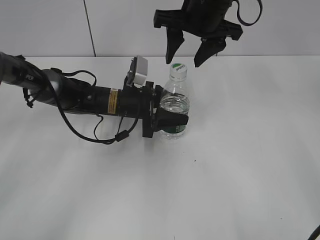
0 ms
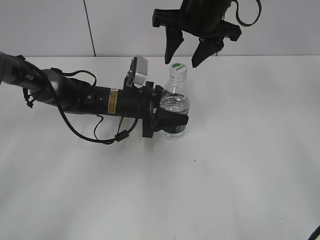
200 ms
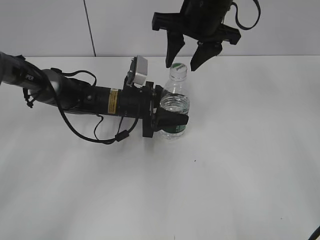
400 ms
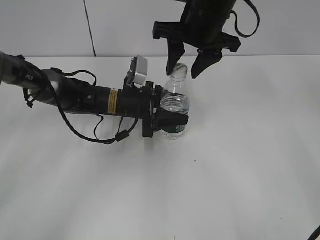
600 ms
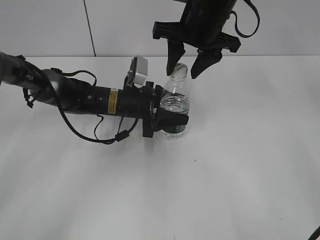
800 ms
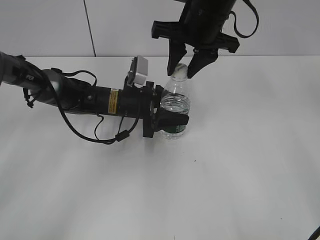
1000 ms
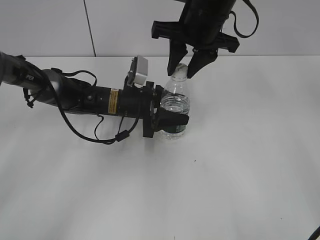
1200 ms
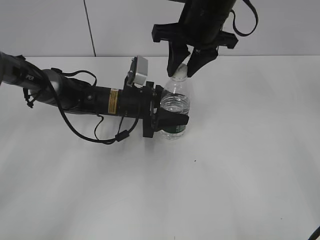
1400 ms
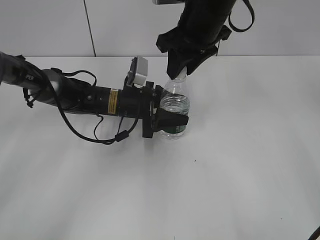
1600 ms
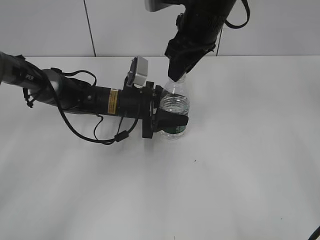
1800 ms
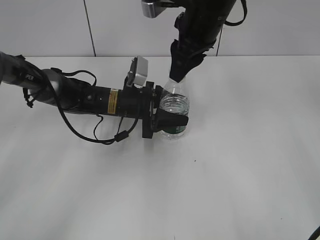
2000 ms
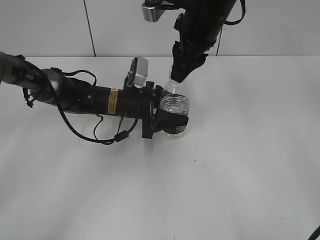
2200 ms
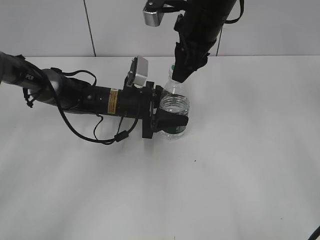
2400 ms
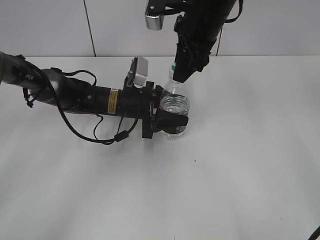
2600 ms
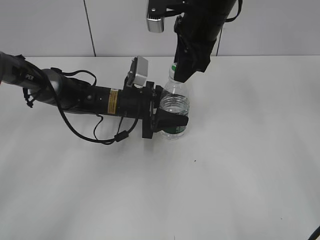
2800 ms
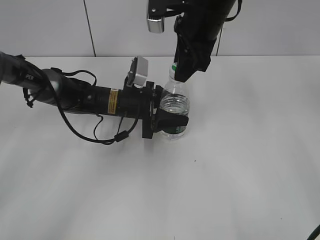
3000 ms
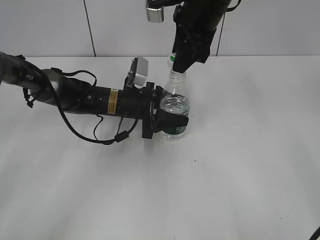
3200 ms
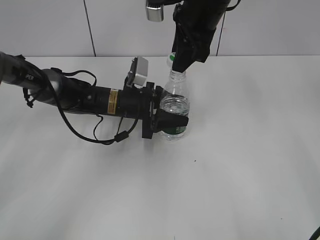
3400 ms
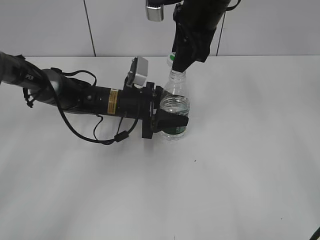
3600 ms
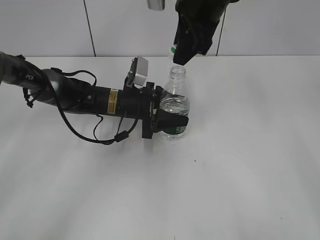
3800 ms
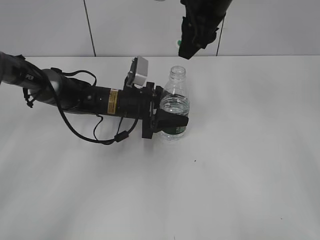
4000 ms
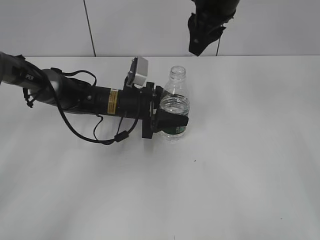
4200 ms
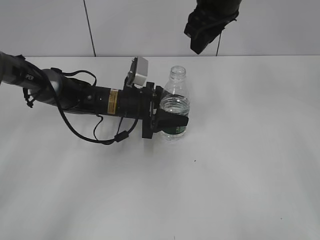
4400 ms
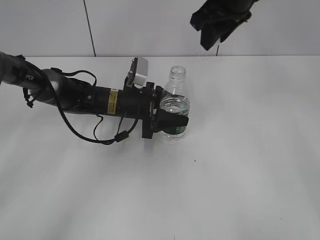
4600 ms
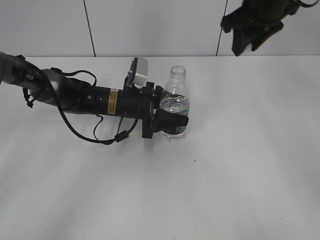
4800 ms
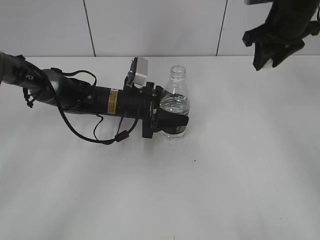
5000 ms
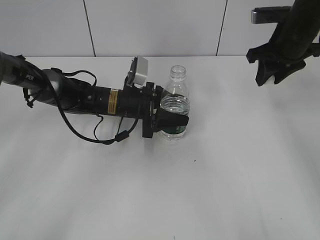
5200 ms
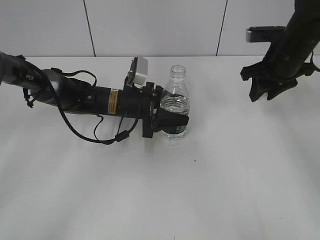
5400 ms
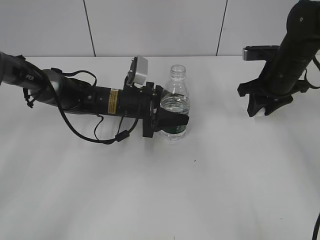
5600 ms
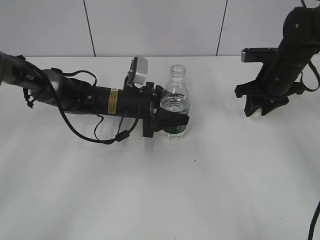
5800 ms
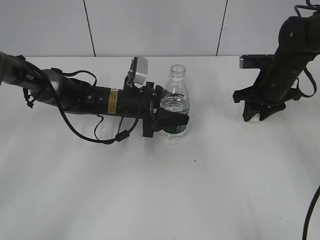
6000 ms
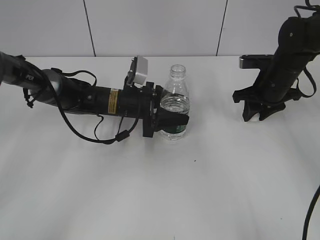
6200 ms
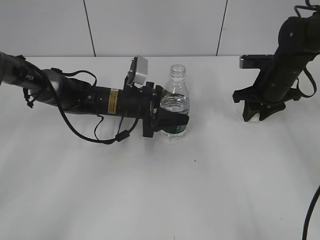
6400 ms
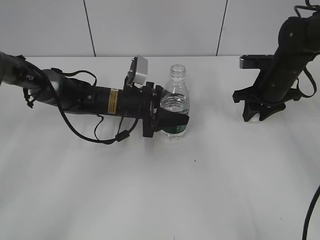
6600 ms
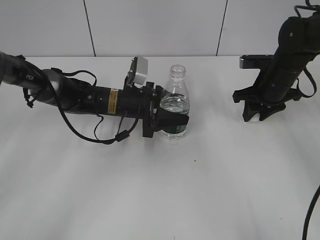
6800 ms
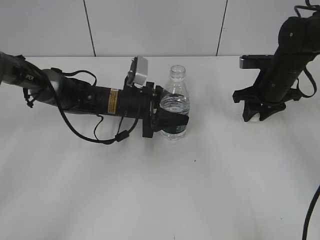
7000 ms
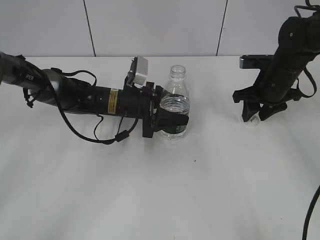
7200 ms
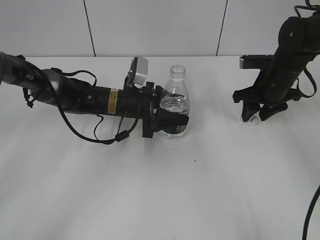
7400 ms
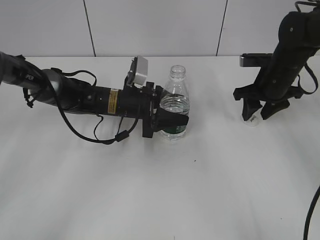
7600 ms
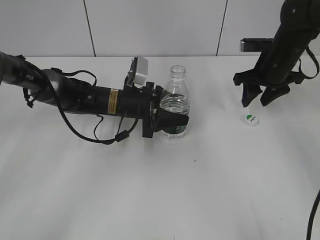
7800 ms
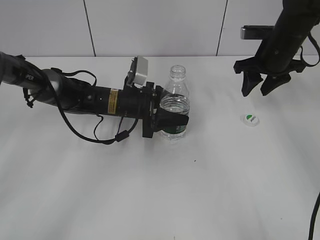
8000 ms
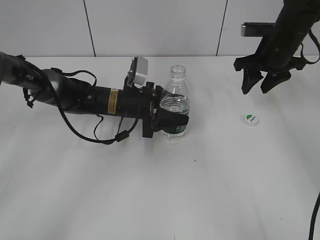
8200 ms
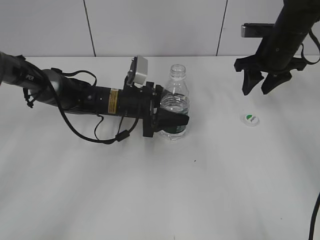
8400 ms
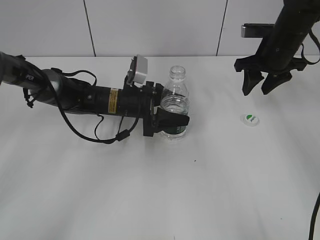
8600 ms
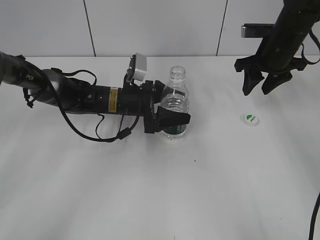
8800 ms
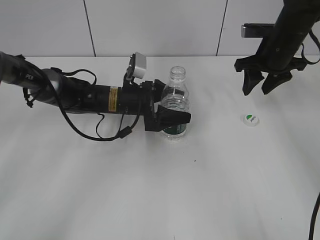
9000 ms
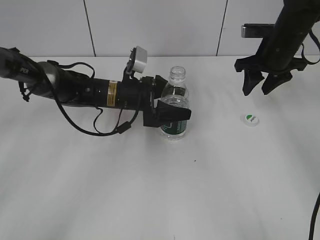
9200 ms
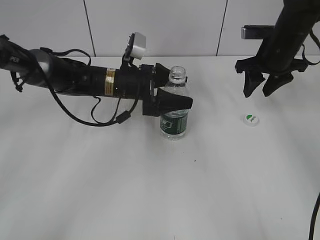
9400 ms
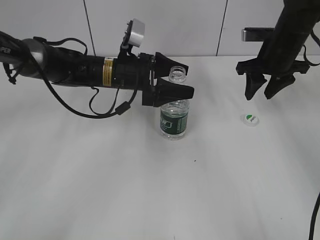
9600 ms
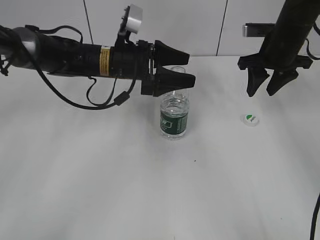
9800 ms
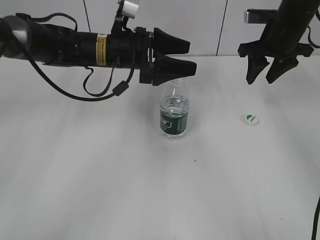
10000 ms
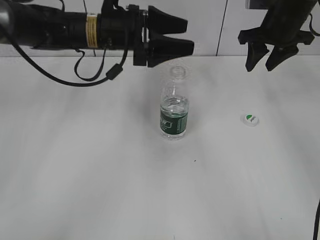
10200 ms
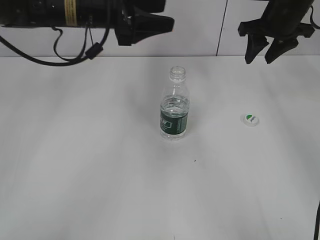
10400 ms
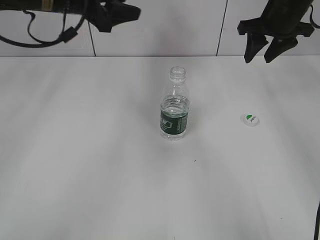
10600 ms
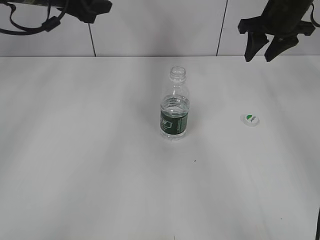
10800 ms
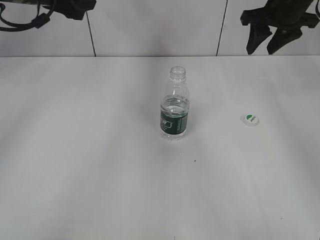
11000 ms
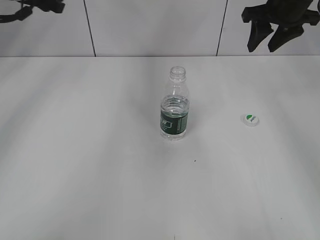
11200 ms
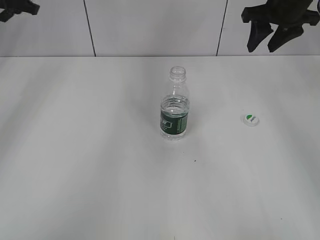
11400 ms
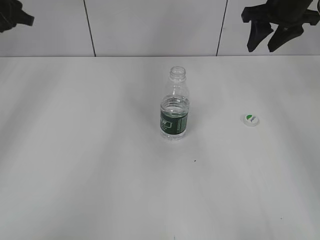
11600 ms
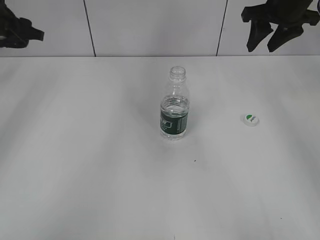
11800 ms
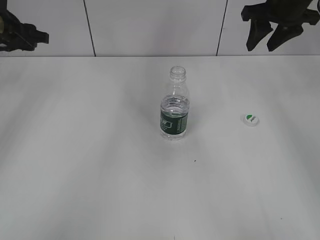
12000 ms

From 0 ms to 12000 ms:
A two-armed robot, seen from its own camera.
Step, from 0 ms to 4000 ms: Unscrew the bottle cap with the right gripper while holding the bottle with the left gripper.
Step, from 4400 ms to 7800 ms: Place the bottle cap on the table with the right gripper.
Step, from 8000 ms to 9800 ms: Place the bottle on the table with the left gripper.
From 0 ms to 1600 ms: The right gripper closes up.
From 4400 ms to 6000 ms: The right gripper travels downward and to the right by about 25 cm.
From 6000 ms to 7600 ms: The right gripper opens.
From 7600 ms to 9000 ms: The right gripper goes about 5 cm upward. Meanwhile the left gripper opens its fingers.
From 9000 ms to 10400 ms: The right gripper is displaced upward by about 5 cm. The left gripper moves upward, some 20 cm.
From 10400 ms to 12000 ms: The left gripper shifts approximately 20 cm to the left.

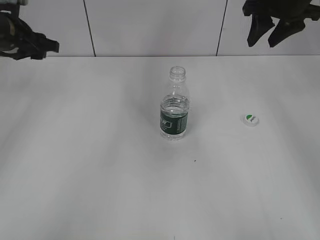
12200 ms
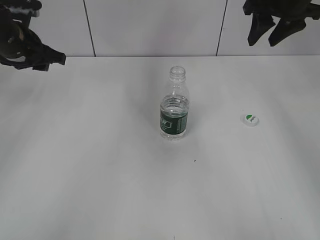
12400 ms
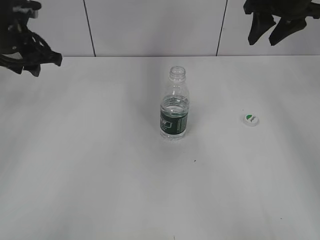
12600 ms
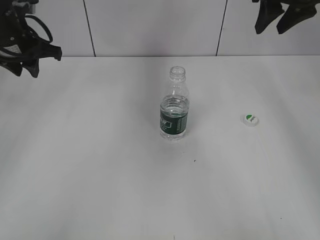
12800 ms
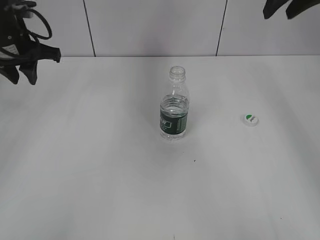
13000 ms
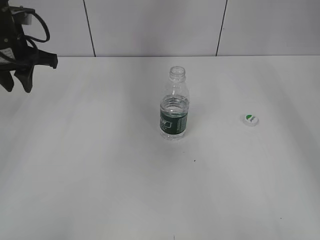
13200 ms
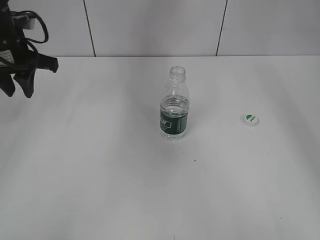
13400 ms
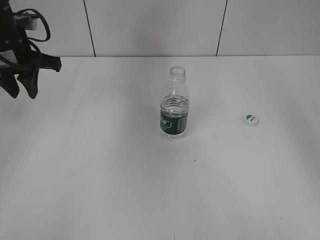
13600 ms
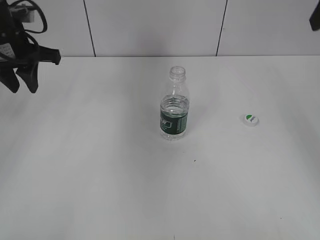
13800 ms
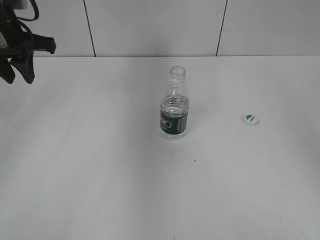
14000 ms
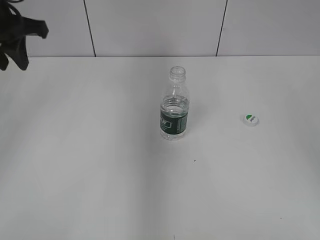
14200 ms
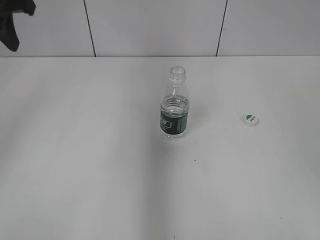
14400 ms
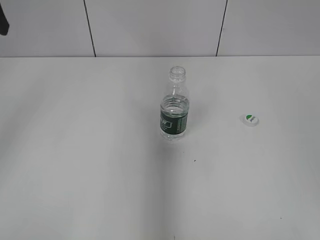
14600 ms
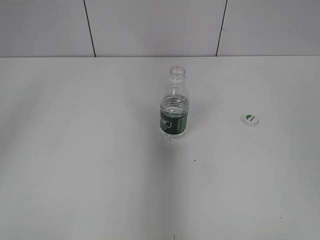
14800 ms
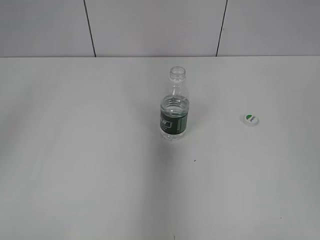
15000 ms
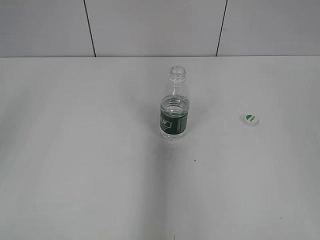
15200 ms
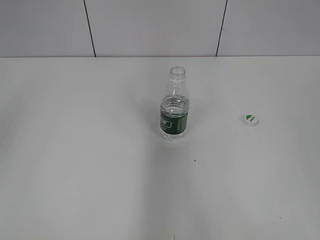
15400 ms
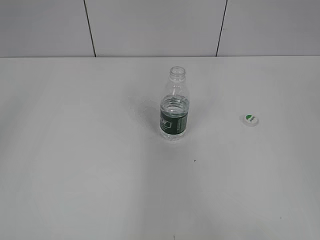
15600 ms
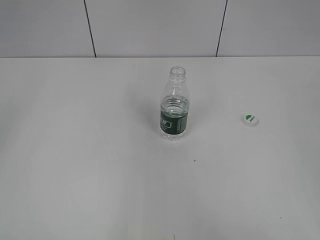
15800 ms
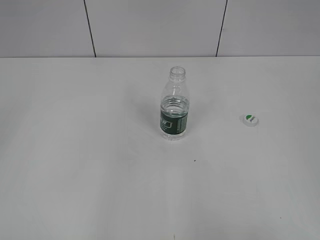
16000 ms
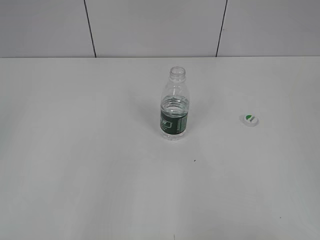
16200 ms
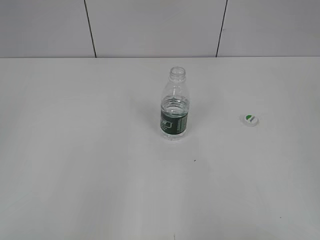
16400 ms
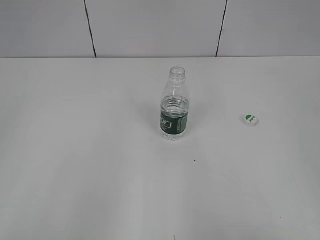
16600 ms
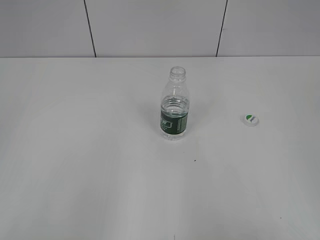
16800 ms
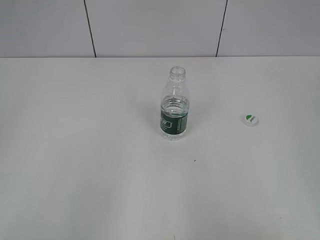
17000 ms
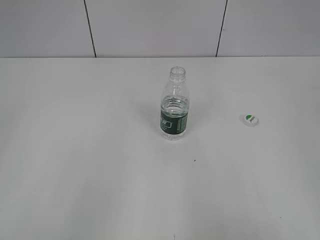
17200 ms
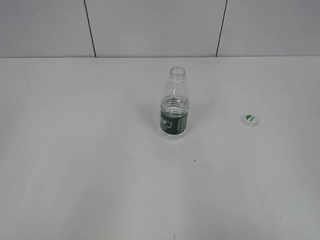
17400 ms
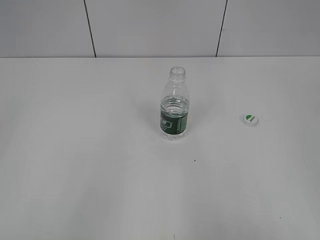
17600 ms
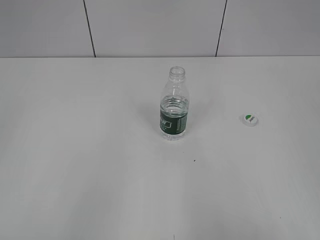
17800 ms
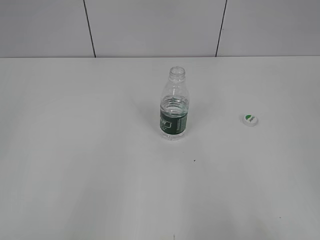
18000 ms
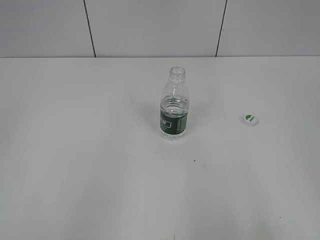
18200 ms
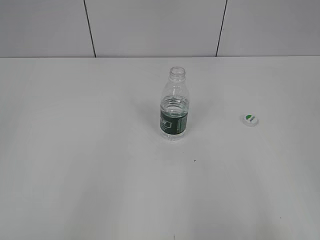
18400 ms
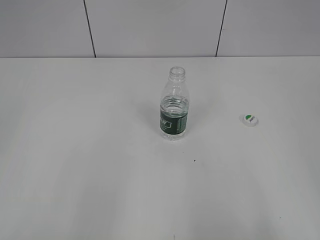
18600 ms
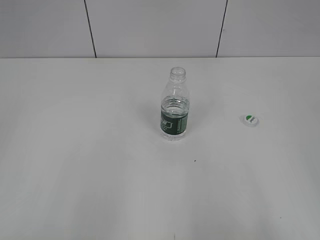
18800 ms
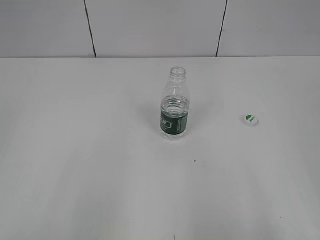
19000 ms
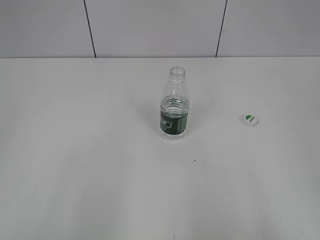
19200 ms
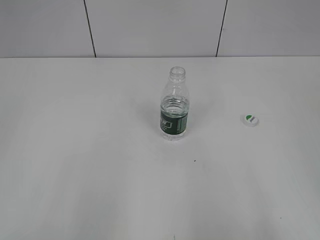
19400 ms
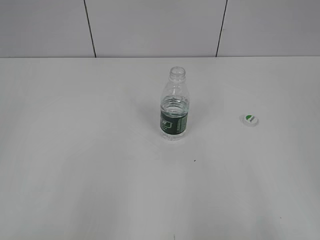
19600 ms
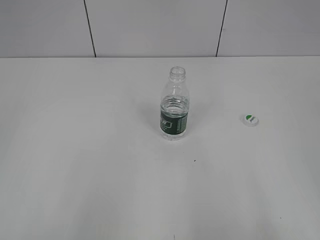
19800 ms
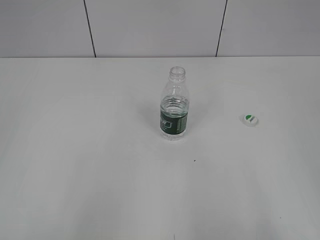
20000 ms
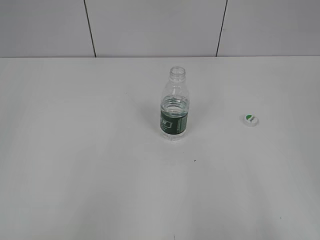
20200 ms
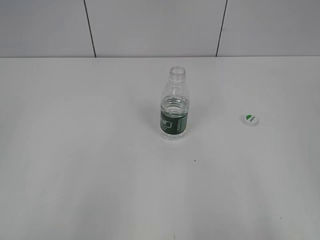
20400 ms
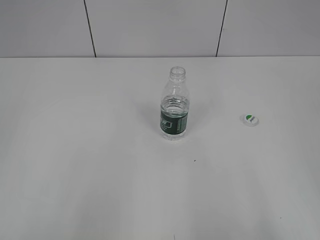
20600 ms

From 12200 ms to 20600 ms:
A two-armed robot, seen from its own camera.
From 12200 ms to 13600 ms: The right gripper is displaced upward and backward by roughly 15 cm, while the left gripper ends up some 5 cm from where it was, and closes its fingers.
From 13600 ms to 15000 ms: The right gripper goes about 25 cm backward. Meanwhile the left gripper heads upward and backward, covering approximately 20 cm.
From 15000 ms to 16400 ms: The right gripper moves backward and downward, roughly 10 cm; the left gripper travels backward by roughly 25 cm.

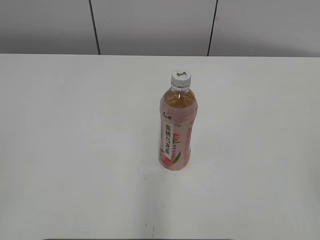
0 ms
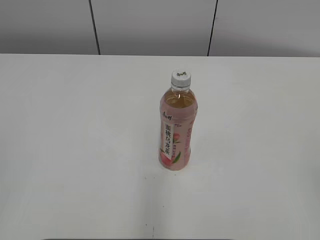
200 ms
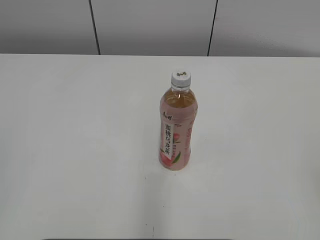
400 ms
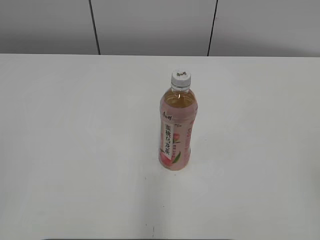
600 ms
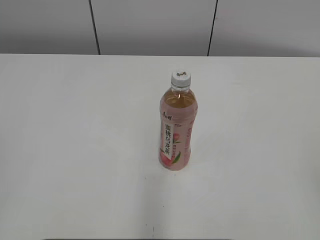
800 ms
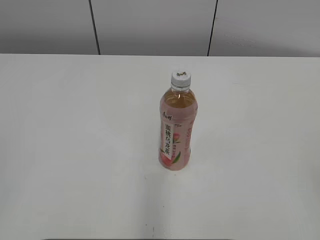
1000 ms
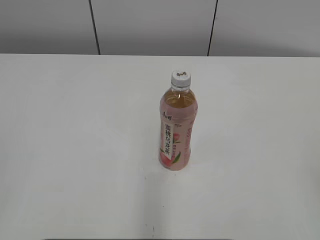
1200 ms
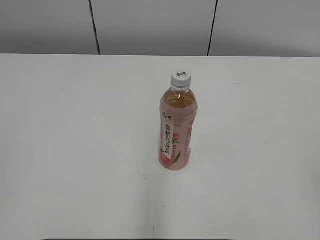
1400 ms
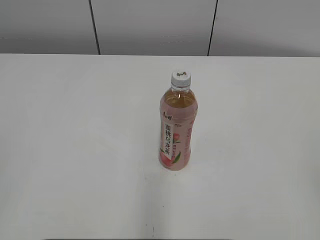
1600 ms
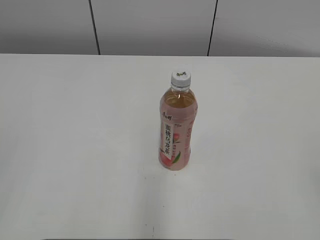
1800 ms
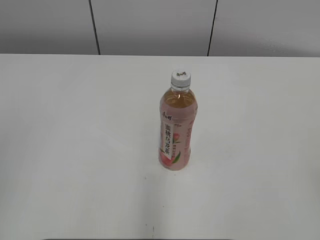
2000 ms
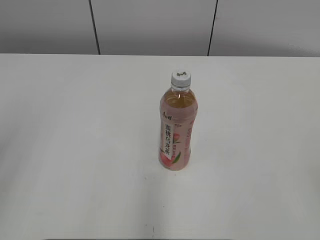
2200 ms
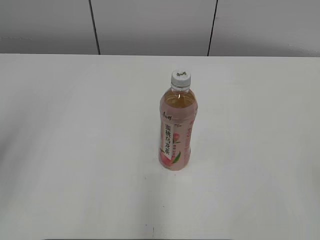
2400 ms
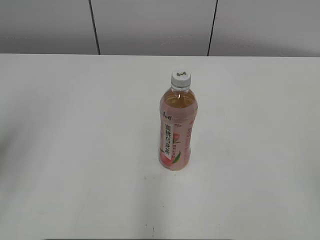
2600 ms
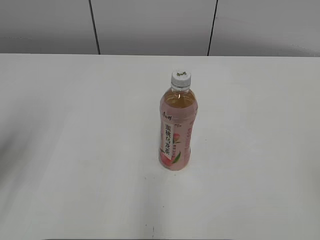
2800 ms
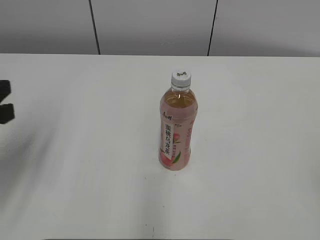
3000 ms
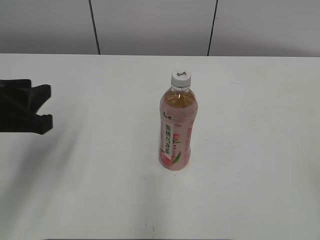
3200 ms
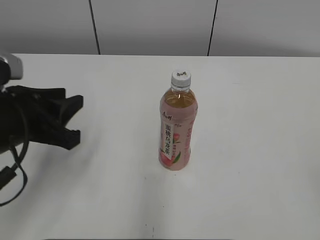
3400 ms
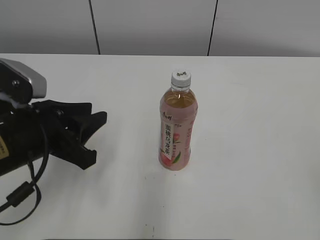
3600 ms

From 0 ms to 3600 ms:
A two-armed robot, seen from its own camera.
From 1800 ms to 3600 ms: The left gripper travels forward, downward and to the right by about 30 cm.
